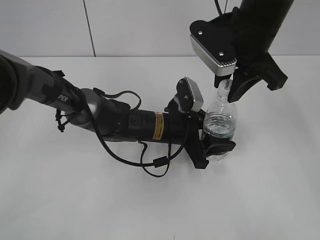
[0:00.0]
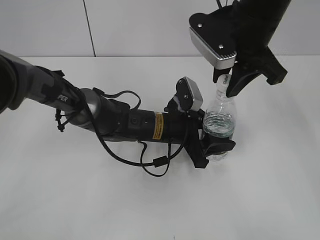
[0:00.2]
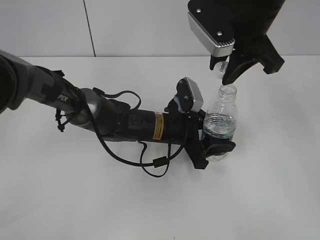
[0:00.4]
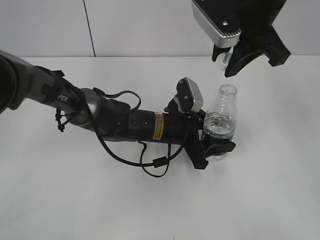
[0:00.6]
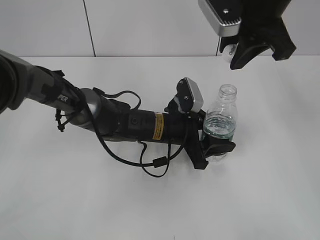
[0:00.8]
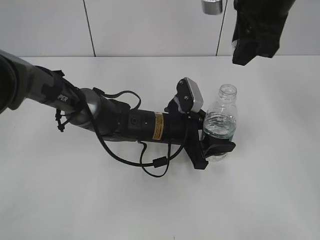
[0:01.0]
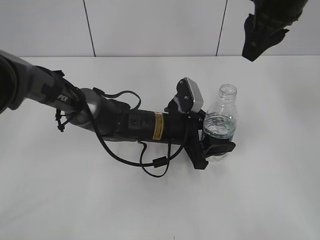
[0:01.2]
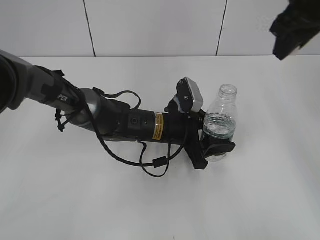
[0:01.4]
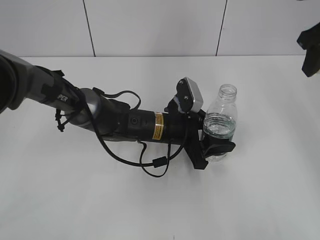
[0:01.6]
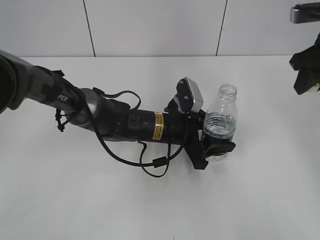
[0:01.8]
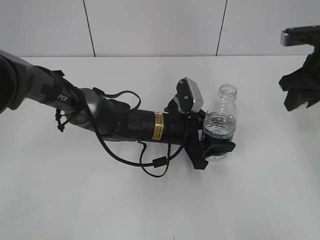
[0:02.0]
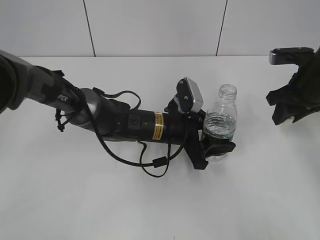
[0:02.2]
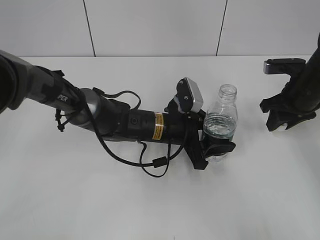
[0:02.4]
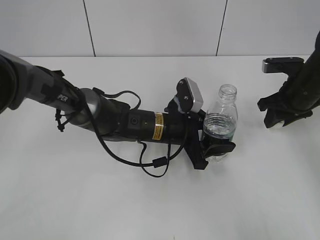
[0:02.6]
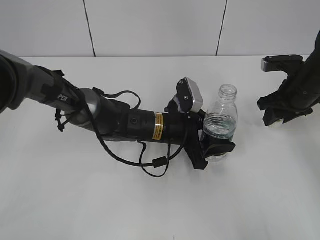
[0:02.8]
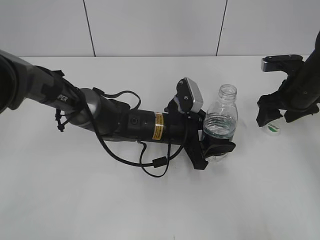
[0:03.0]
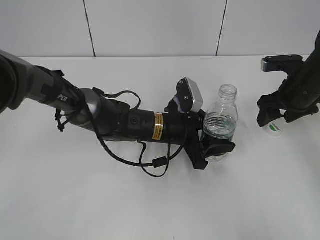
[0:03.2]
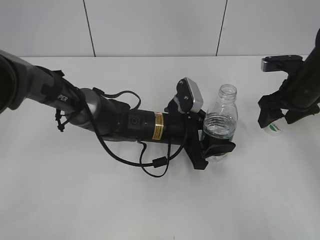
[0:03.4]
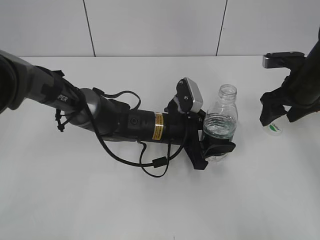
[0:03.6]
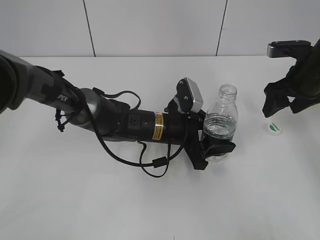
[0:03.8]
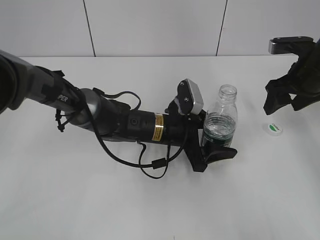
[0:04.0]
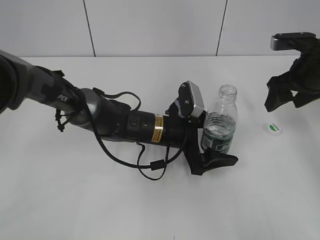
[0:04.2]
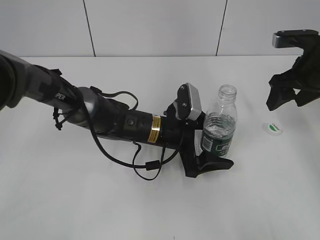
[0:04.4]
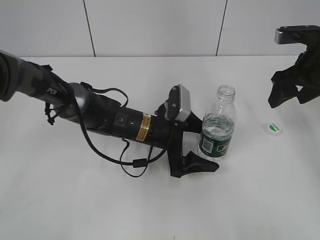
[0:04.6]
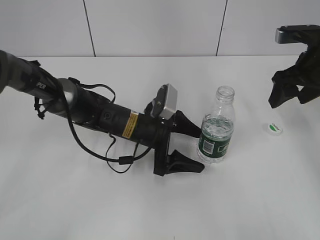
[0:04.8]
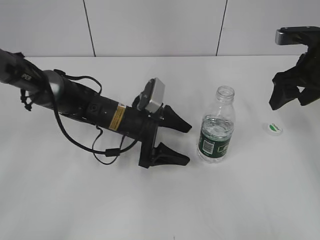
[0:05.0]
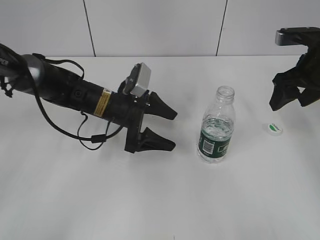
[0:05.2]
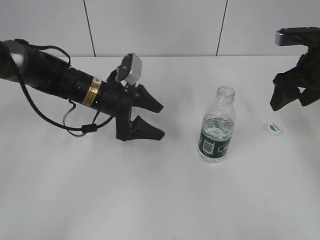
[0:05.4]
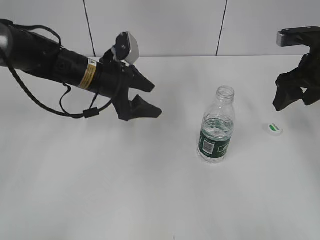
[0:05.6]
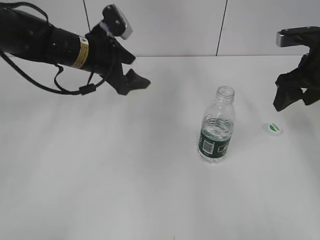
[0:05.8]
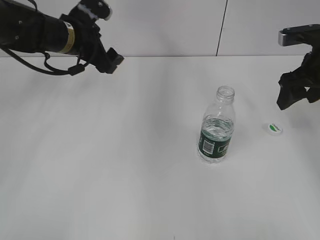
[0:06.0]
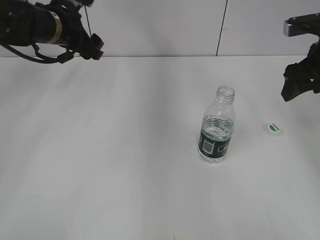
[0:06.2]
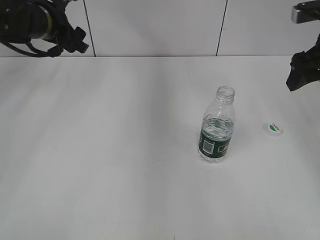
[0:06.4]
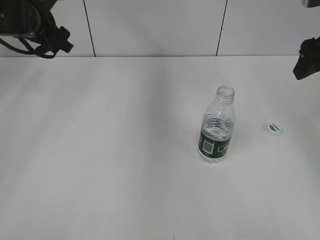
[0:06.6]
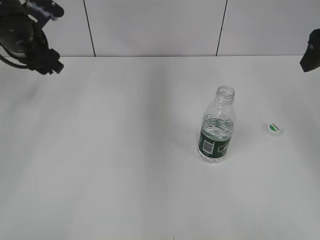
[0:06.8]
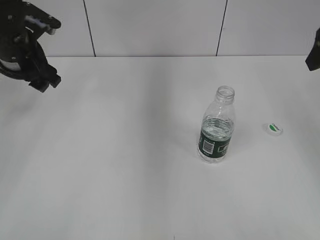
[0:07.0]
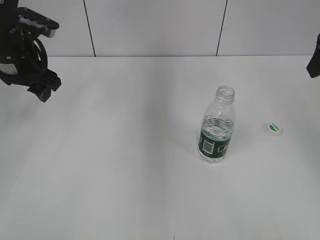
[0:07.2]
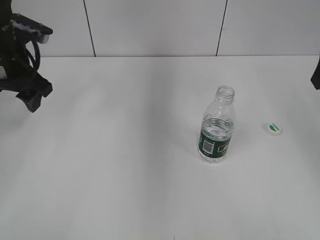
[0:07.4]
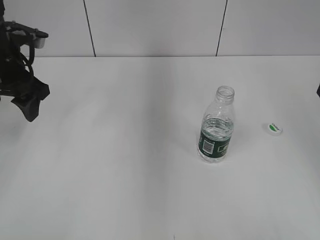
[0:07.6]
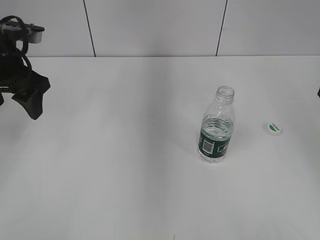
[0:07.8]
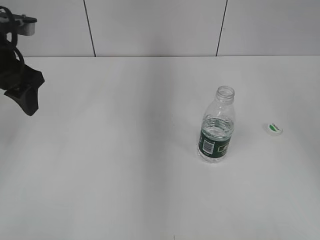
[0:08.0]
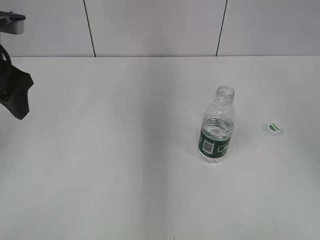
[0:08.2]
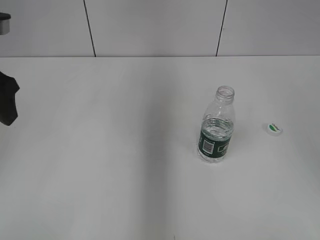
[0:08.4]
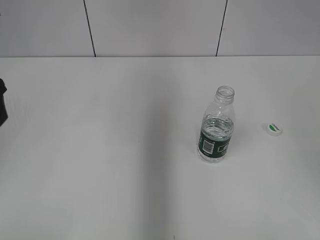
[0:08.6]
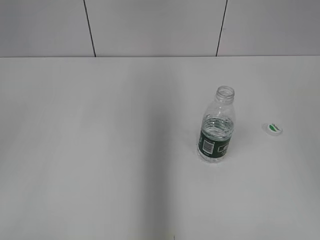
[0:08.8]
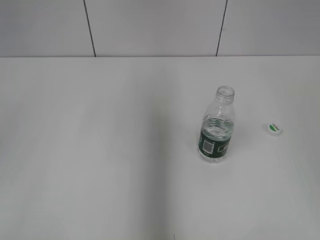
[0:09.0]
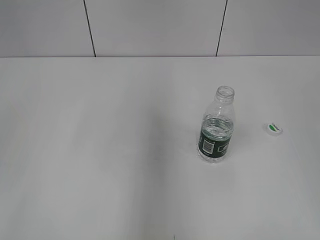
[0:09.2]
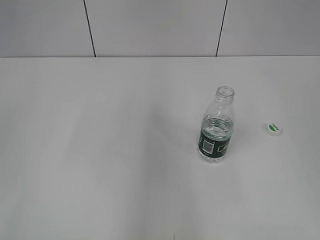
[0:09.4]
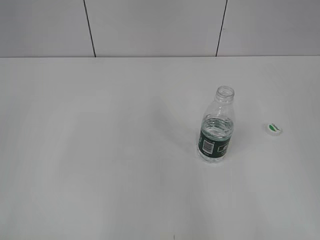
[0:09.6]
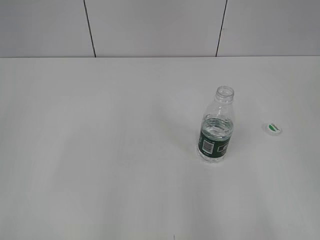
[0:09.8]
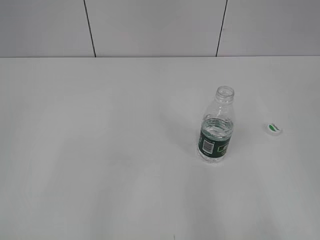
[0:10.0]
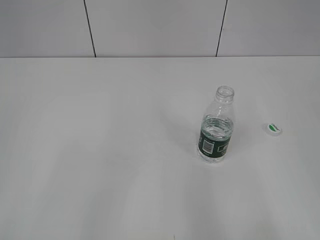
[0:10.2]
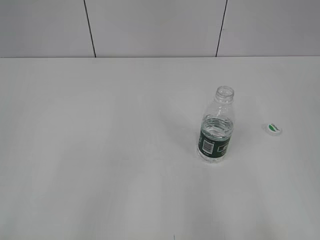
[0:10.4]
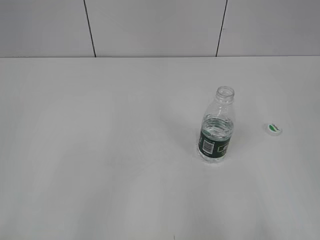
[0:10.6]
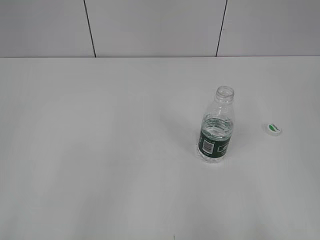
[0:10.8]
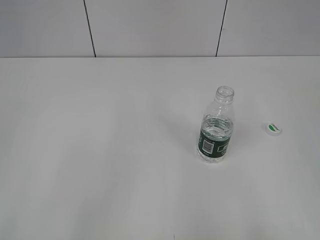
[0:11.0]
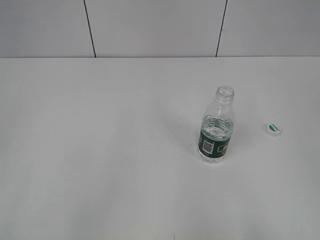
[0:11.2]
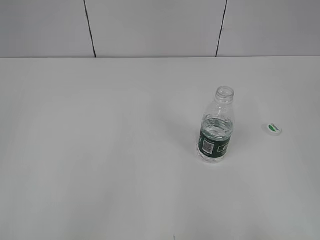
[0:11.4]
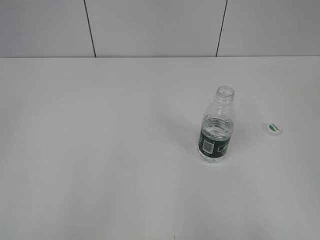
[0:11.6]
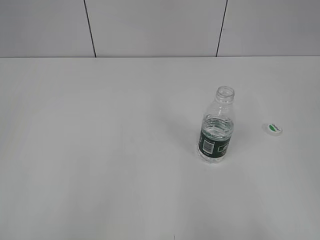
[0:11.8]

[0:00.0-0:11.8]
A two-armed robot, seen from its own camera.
0:00.0 to 0:01.4: The right gripper goes some 10 cm to the right.
0:01.4 to 0:03.0: The right gripper heads downward, covering some 20 cm, and opens its fingers.
0:03.0 to 0:04.4: The left gripper opens its fingers. Meanwhile the right gripper travels upward by roughly 5 cm.
0:04.4 to 0:06.0: The left gripper goes some 25 cm to the left, upward and forward.
0:06.0 to 0:07.4: The left gripper is displaced to the left and backward by approximately 10 cm; the right gripper shifts some 10 cm upward and backward.
0:07.4 to 0:08.8: The left gripper goes approximately 15 cm backward and upward; the right gripper travels backward by some 15 cm.
0:08.8 to 0:10.4: Both grippers move backward, some 15 cm.
